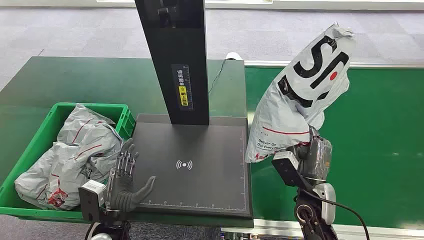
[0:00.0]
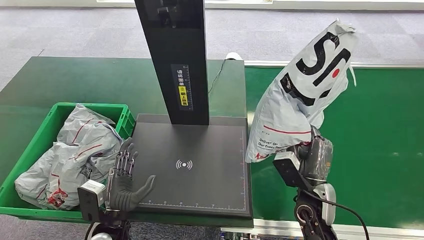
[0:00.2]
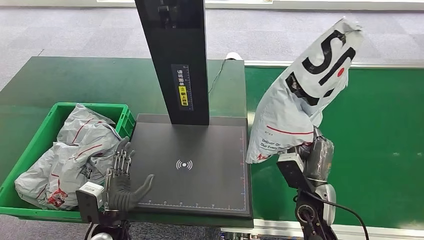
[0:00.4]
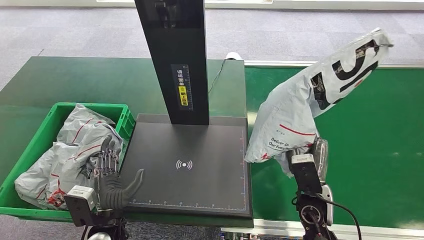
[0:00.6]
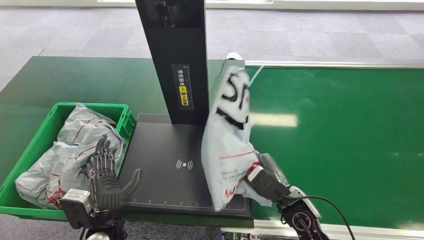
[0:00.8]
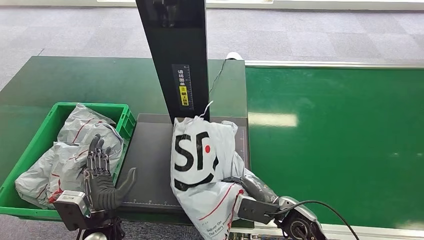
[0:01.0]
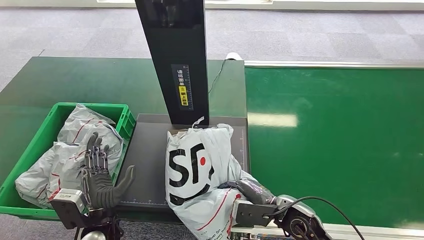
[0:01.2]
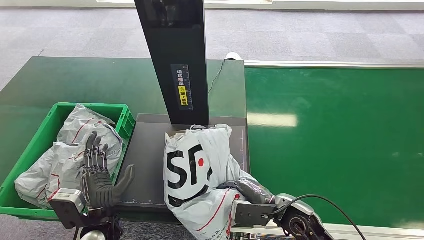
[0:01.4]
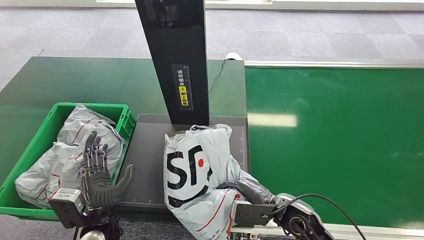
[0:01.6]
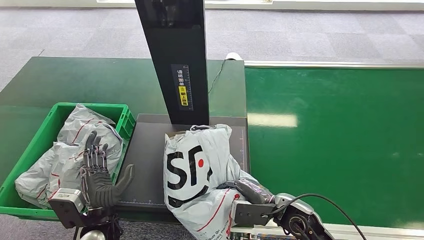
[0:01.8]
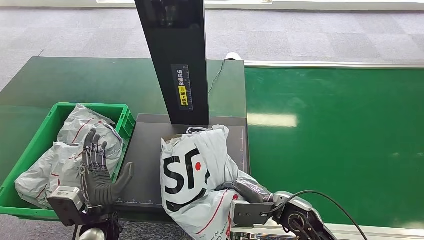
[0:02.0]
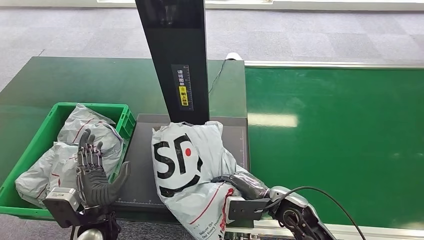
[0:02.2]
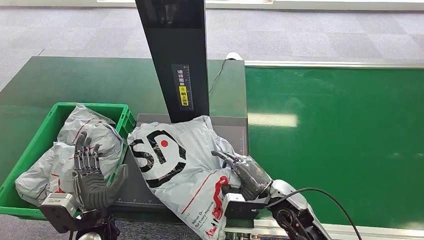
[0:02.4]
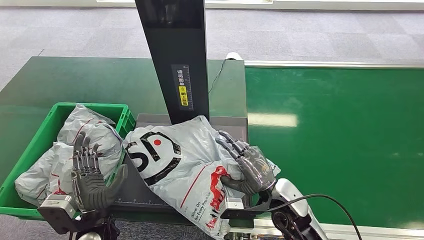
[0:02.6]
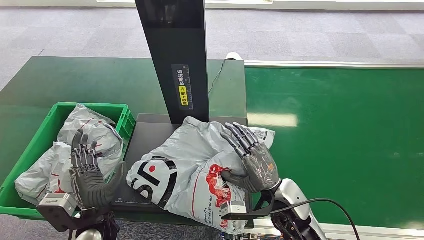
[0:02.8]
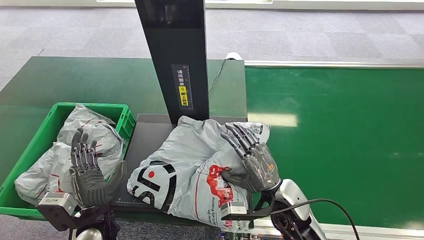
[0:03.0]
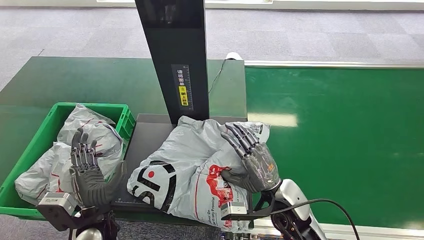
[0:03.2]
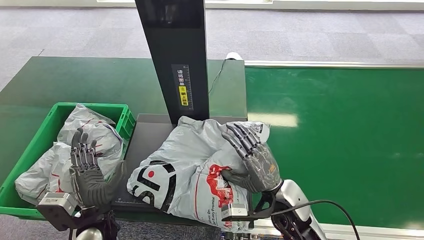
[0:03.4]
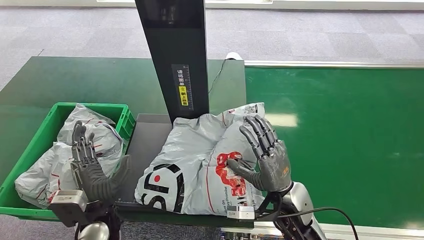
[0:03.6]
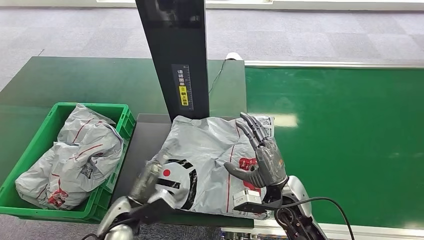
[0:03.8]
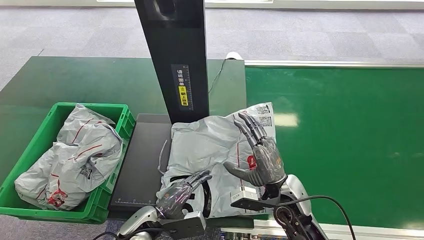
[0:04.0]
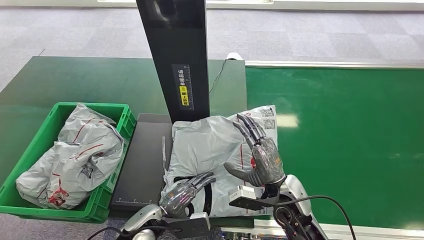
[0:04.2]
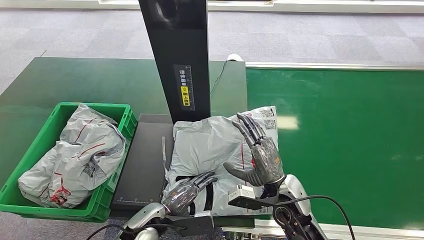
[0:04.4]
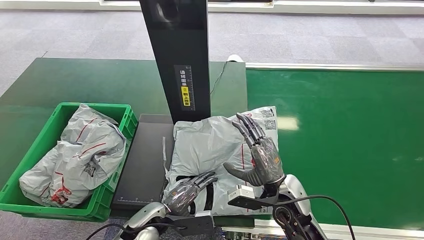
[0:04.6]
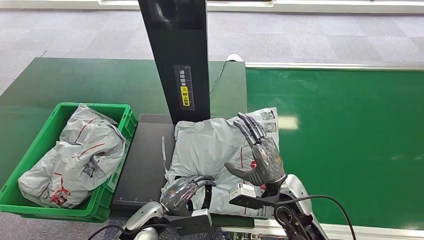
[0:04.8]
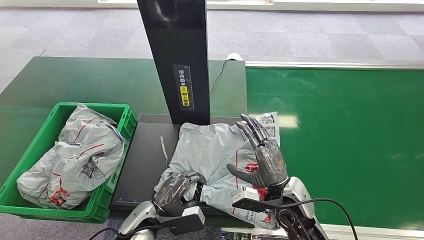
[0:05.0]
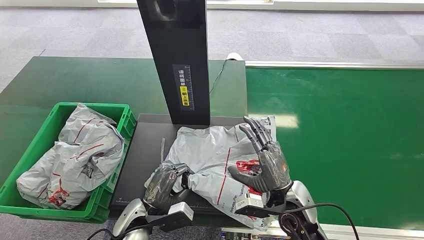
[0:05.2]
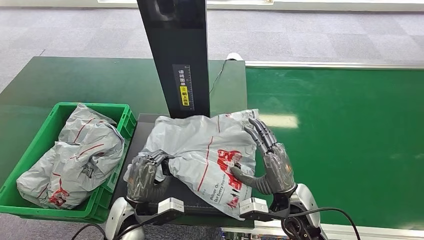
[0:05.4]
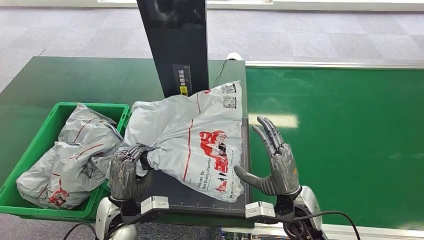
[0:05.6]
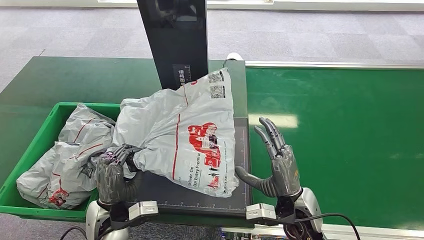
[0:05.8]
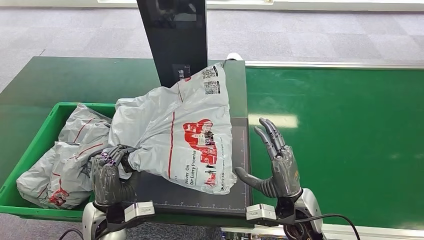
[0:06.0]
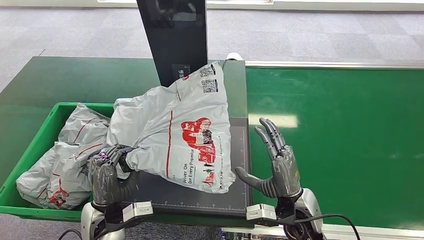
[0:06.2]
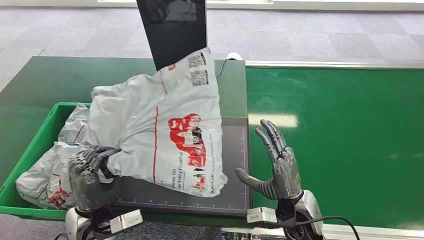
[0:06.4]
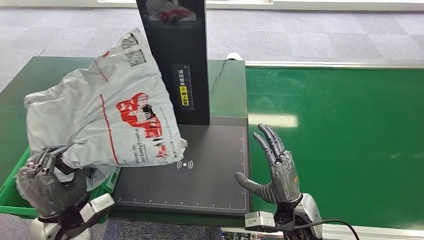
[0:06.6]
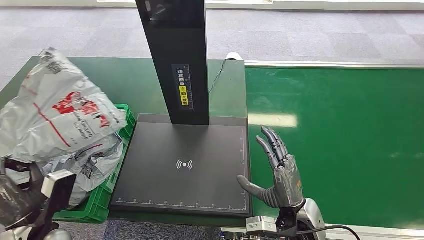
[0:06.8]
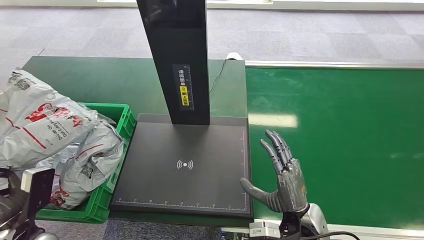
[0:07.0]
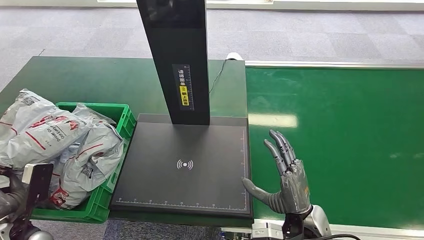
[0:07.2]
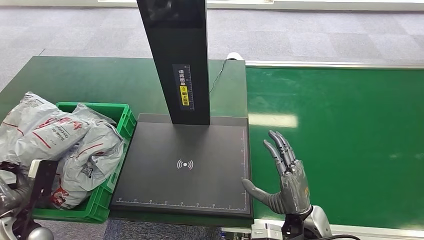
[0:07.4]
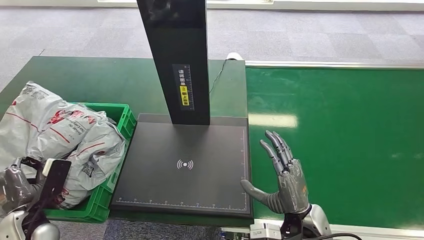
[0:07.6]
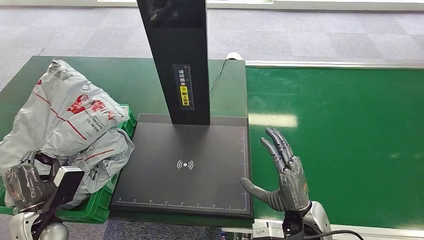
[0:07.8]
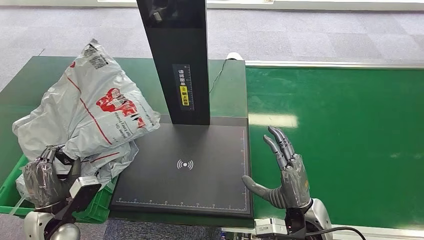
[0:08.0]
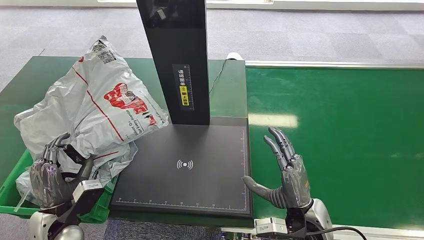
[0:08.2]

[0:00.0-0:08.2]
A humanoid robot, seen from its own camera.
Task of the whole recording: Weigh the package on the weighing device and place it in the left basket.
Step, 0:00.0 to 0:00.2: Pick up the package from the conveyor belt.
0:01.6 to 0:03.2: The right hand shifts by approximately 5 cm.
